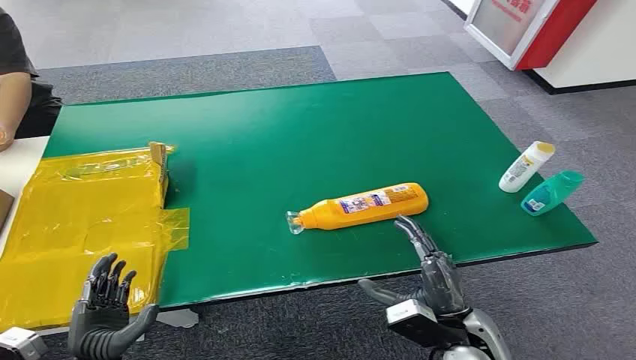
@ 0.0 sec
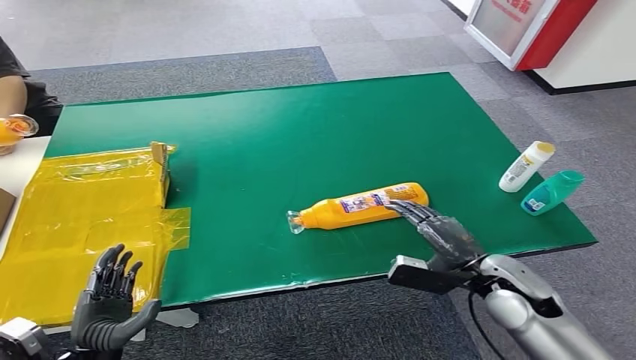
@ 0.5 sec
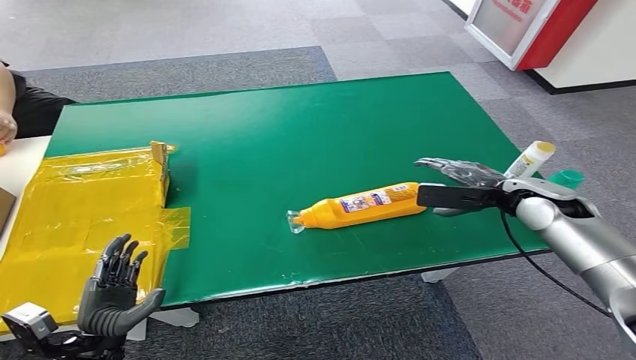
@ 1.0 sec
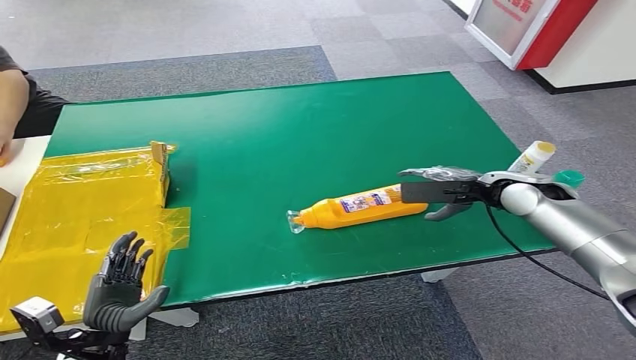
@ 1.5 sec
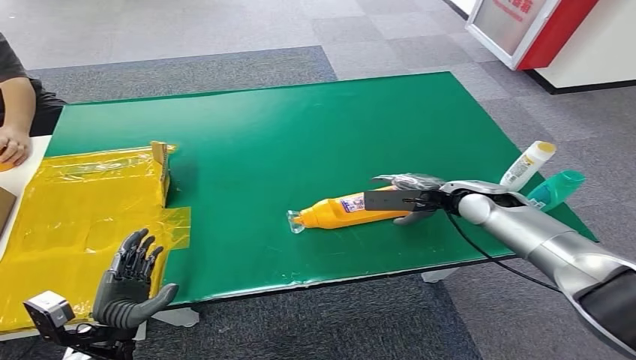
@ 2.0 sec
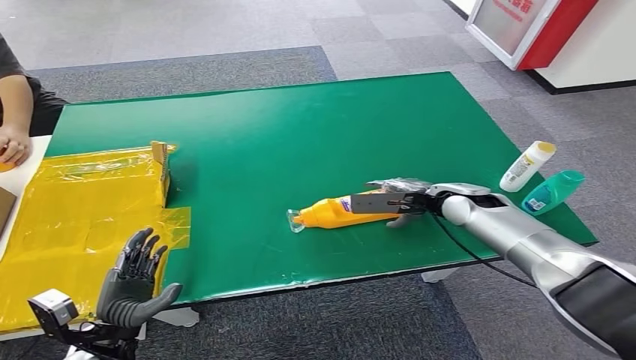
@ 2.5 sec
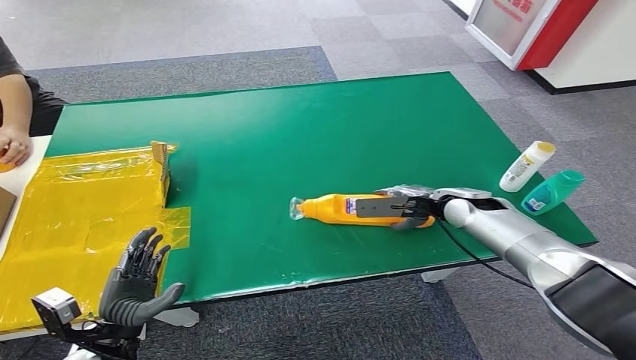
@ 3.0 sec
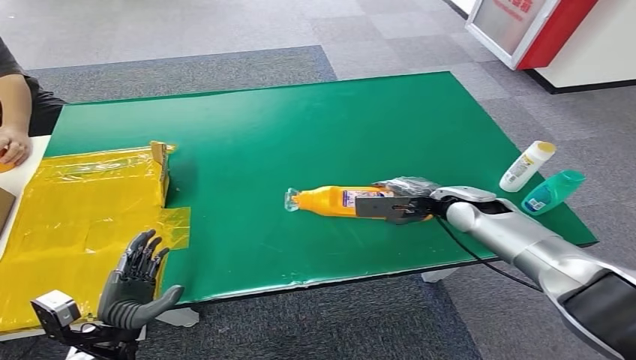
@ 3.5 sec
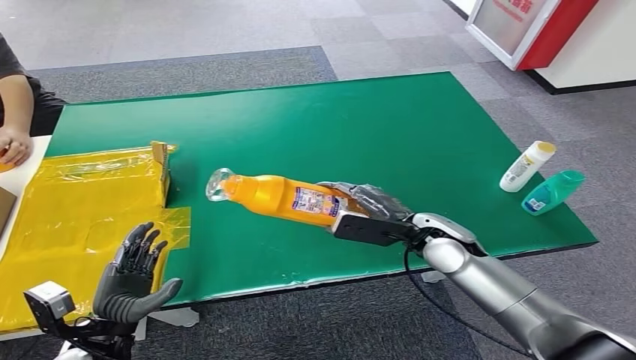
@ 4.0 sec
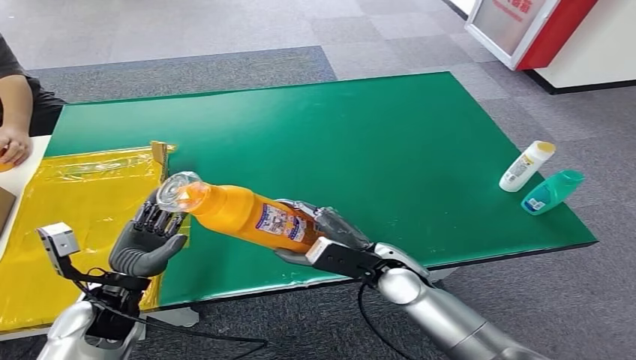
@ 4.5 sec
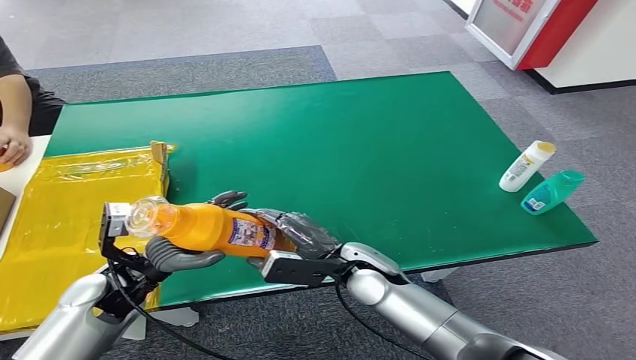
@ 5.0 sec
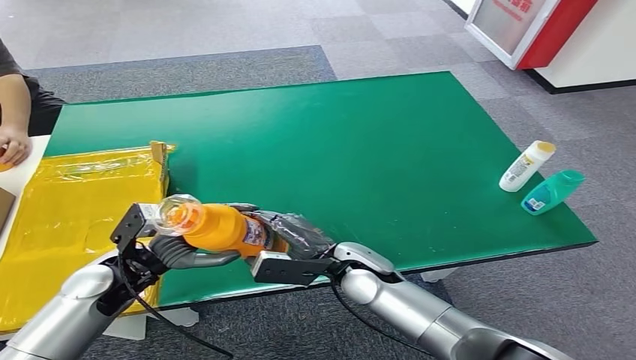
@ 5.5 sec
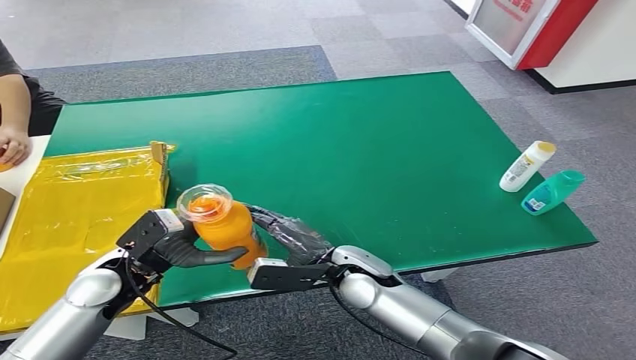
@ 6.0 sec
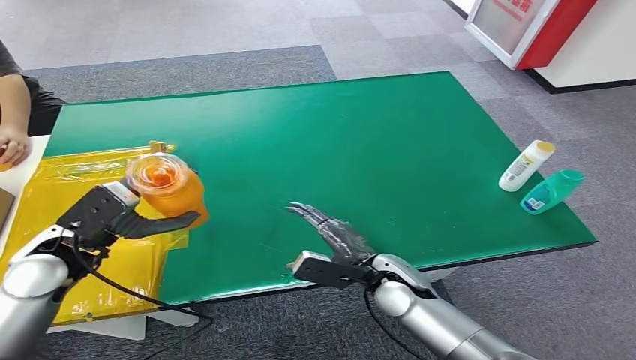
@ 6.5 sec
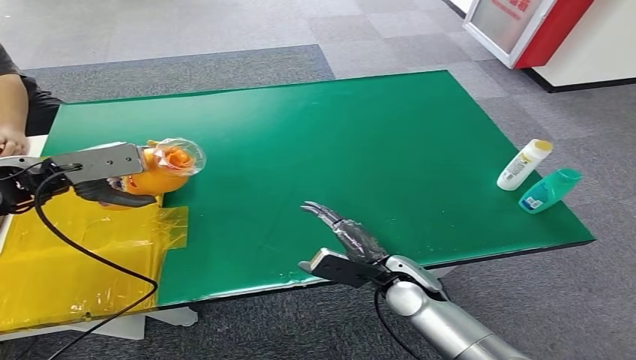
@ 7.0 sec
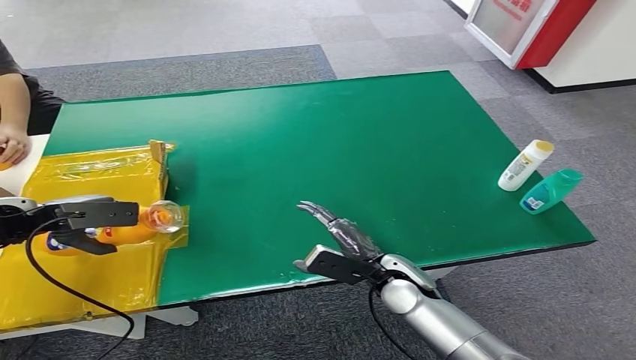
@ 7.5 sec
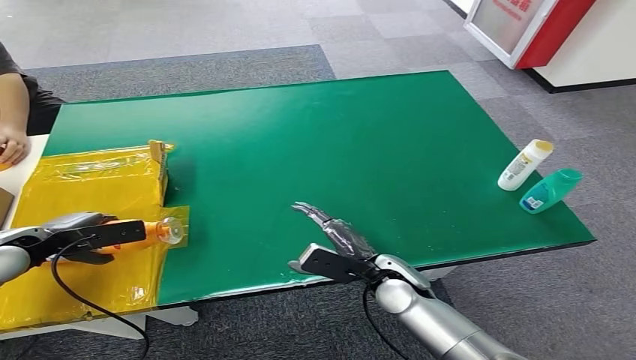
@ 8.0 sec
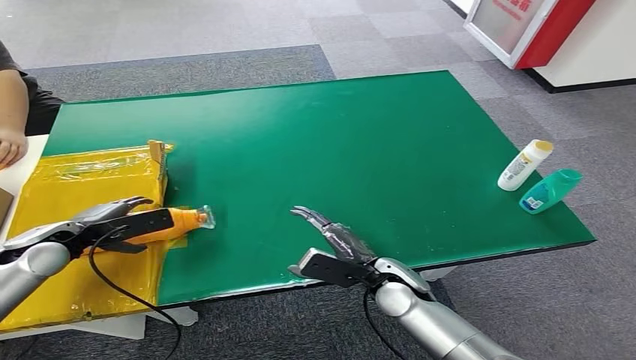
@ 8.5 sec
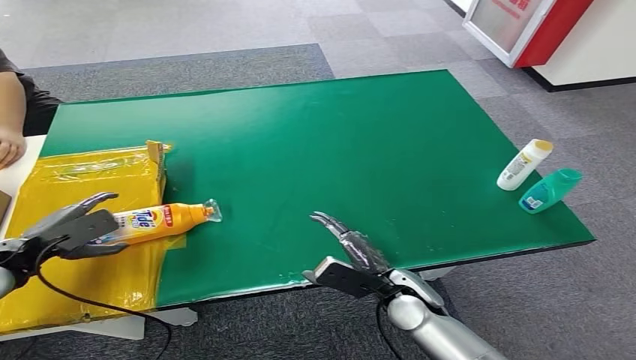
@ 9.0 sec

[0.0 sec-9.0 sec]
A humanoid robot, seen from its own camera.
Step, 0.0 sec to 4.0 sec: Pick up the bottle from the table.
Step, 4.5 sec to 9.0 sec: Turn the bottle to the front side.
7.0 sec to 9.0 sec: The left hand travels downward, backward and to the left by roughly 20 cm.
